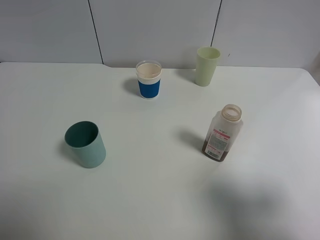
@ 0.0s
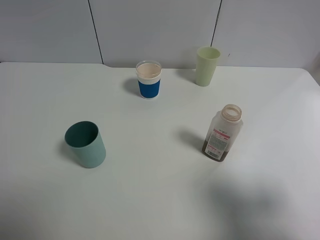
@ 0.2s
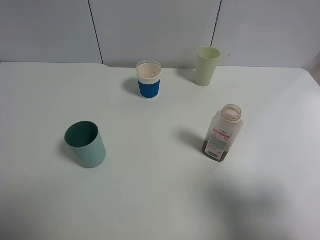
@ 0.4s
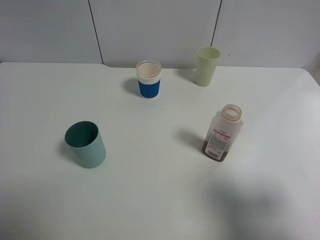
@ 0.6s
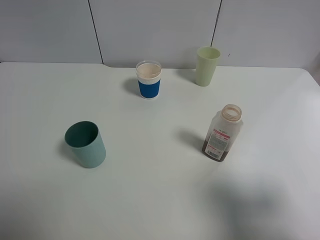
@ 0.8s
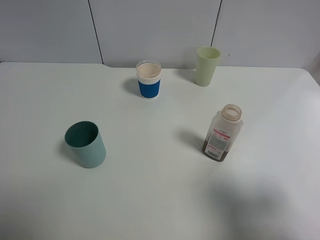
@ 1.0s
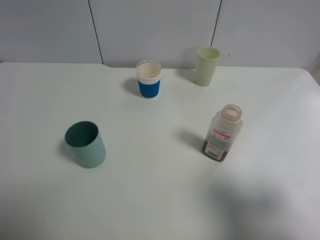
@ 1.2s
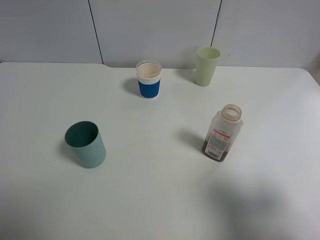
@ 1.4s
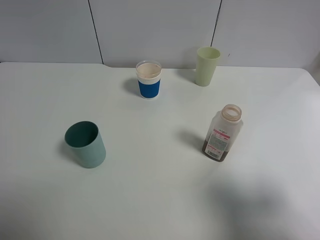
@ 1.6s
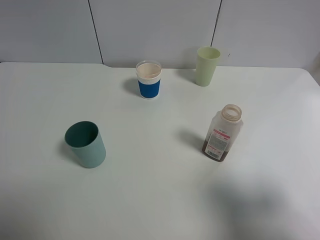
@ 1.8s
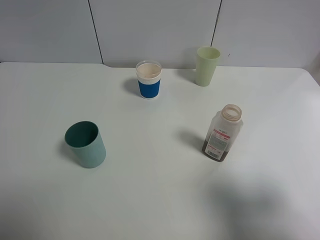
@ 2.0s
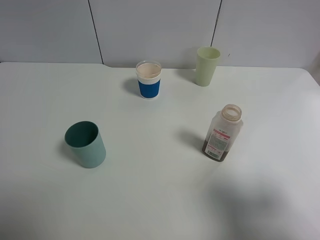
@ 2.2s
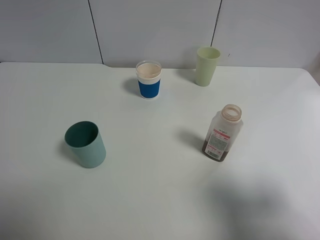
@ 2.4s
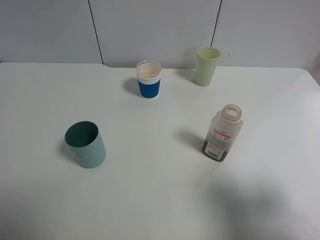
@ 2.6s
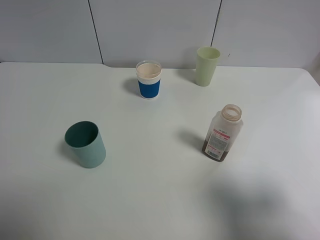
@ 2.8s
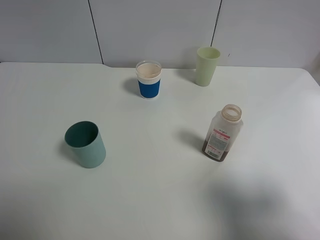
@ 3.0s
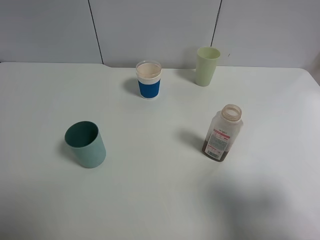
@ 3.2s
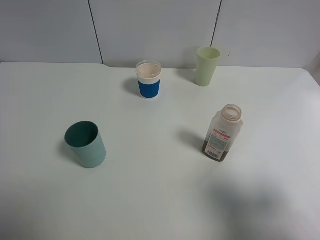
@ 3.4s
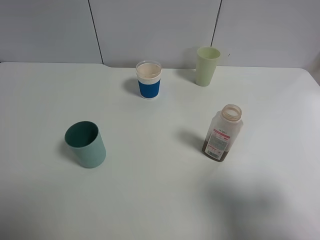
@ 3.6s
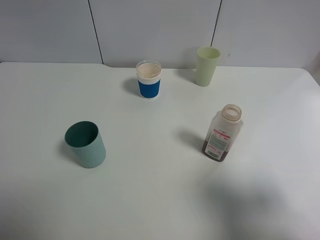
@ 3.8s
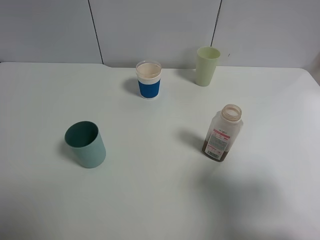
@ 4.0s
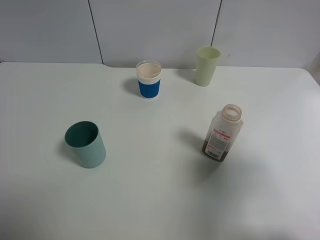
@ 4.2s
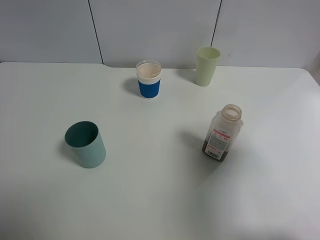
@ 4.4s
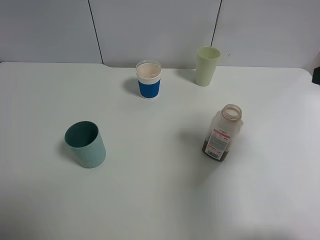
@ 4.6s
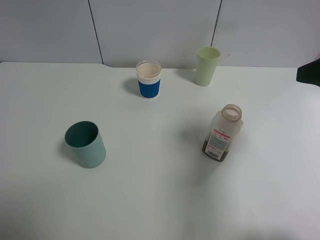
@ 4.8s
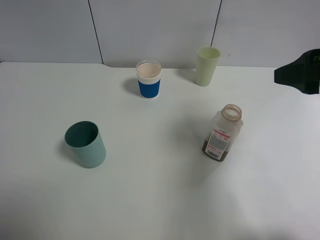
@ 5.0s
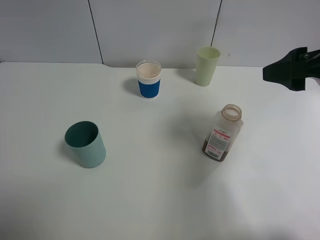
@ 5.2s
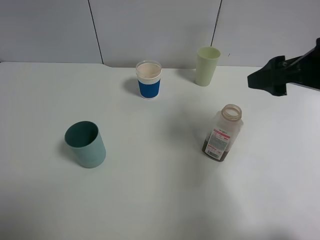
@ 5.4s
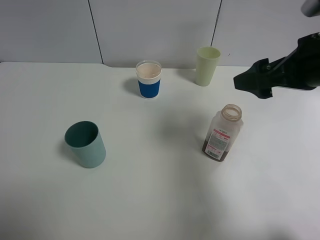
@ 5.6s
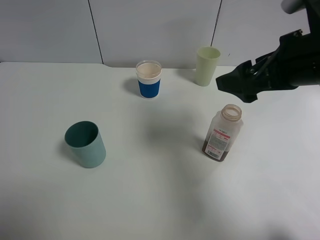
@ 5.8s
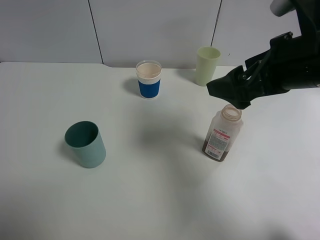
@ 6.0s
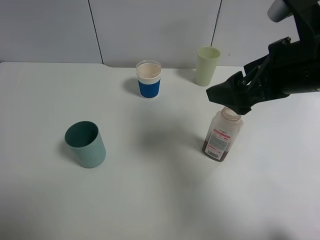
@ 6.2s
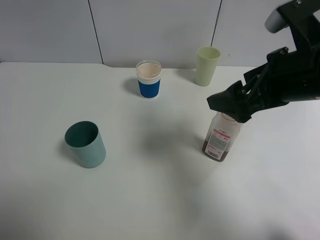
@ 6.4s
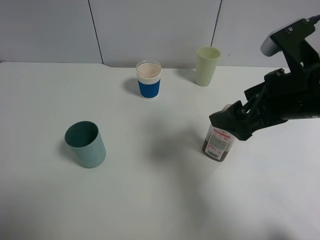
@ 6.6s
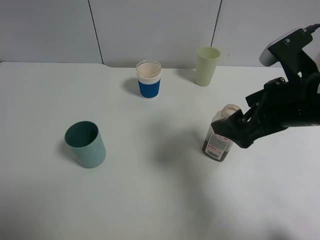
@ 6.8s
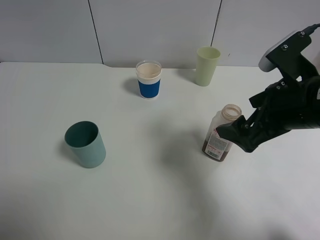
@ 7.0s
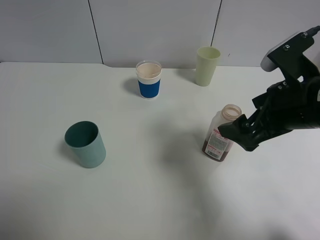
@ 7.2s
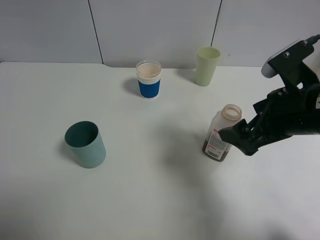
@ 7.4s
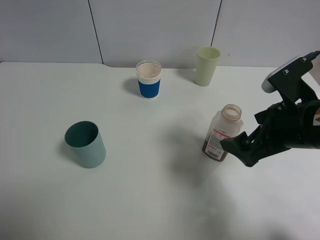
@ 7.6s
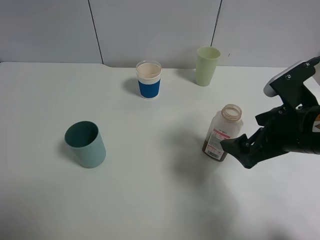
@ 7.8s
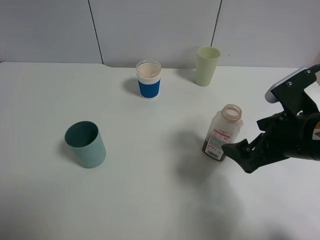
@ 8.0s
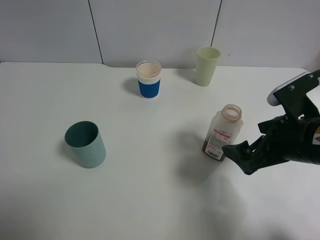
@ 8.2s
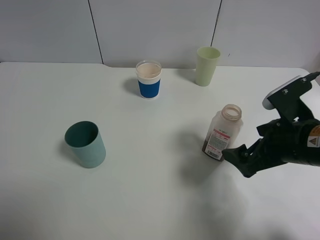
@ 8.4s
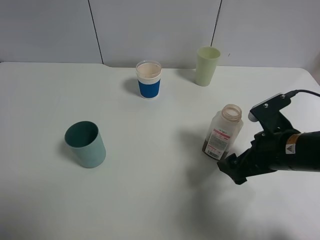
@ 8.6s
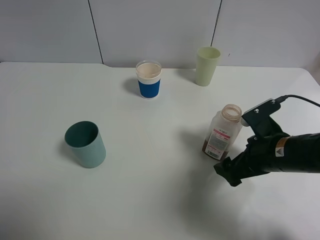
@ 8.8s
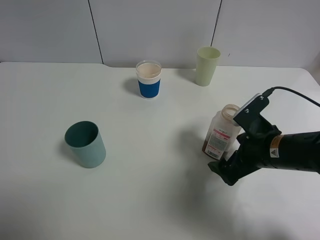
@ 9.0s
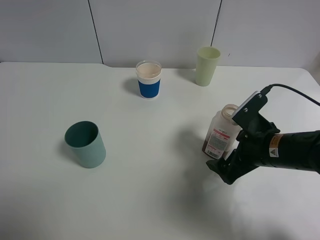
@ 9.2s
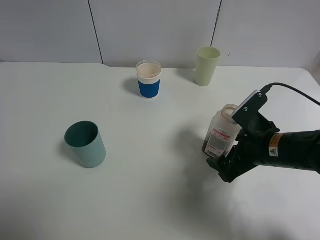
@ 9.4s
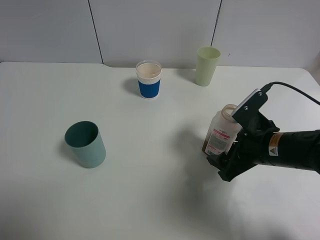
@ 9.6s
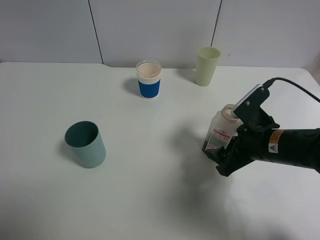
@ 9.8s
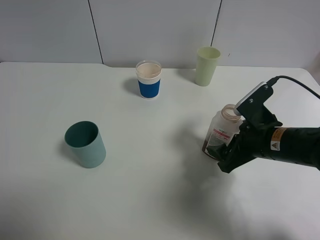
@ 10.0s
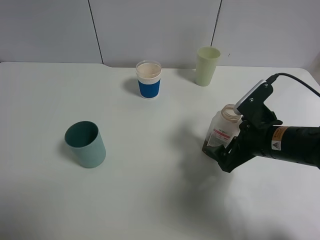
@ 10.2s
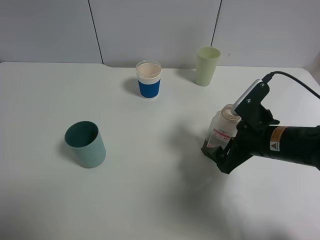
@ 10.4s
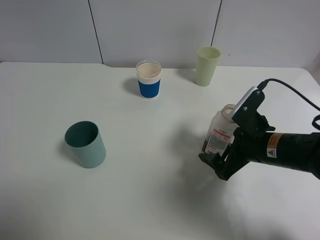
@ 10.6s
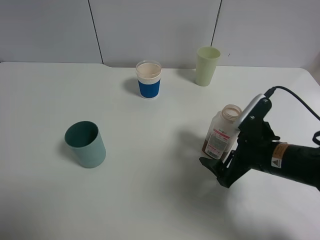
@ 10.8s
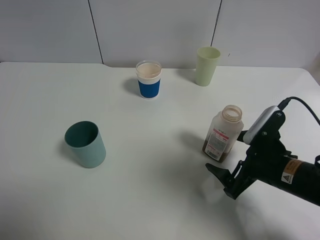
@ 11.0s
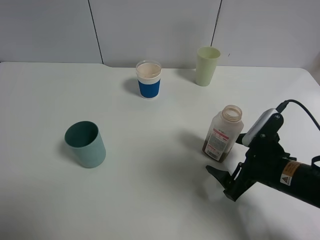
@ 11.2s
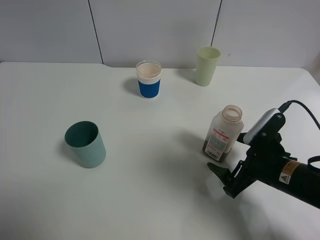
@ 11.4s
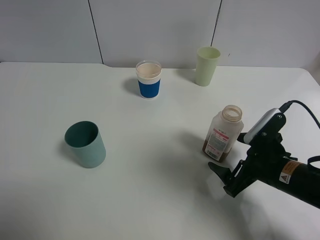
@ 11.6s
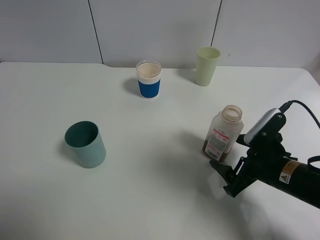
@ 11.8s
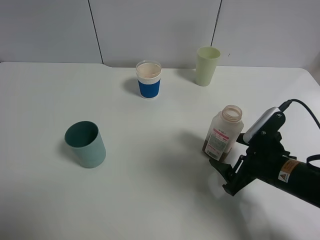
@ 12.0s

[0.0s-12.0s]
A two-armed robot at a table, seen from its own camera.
Task of the whole recording: use a gripper to hold the bottle of the drink and pour it into a random cup.
0.0s to 3.0s: Neither gripper changes place.
3.0s to 4.4s: The right gripper moves forward, about 10 cm.
4.4s to 6.0s: The right gripper heads to the left and forward, covering approximately 15 cm.
6.0s to 7.6s: The right gripper goes roughly 10 cm downward.
7.6s to 9.0s: The right gripper heads downward, covering some 10 cm.
9.0s to 10.4s: The grippers move only a little.
10.4s to 12.0s: The right gripper changes place by about 5 cm.

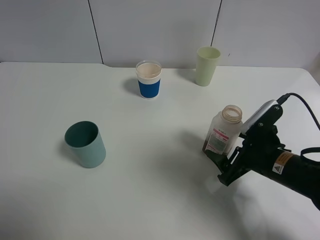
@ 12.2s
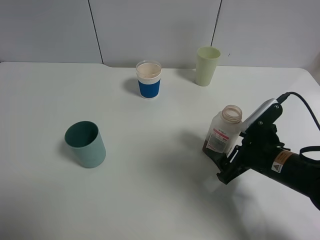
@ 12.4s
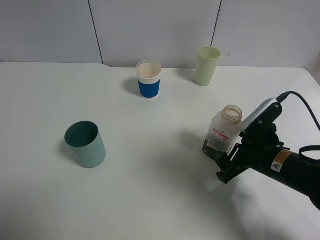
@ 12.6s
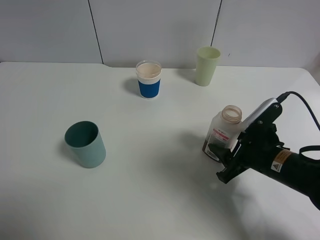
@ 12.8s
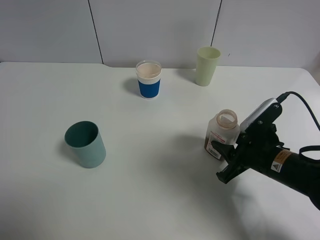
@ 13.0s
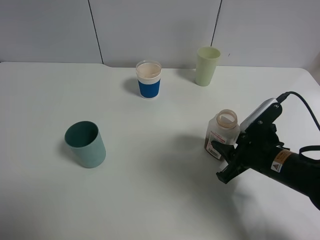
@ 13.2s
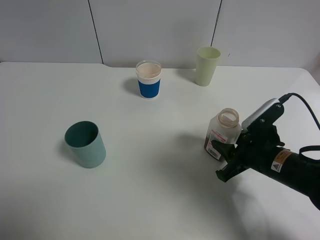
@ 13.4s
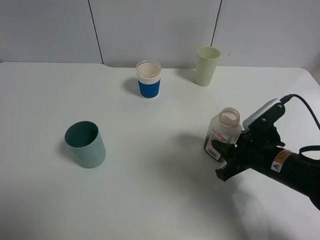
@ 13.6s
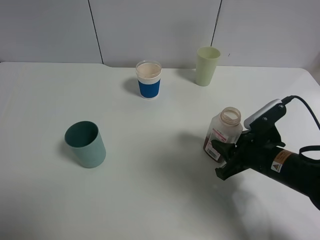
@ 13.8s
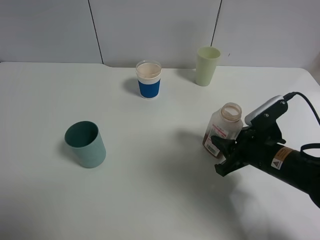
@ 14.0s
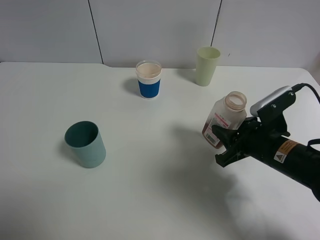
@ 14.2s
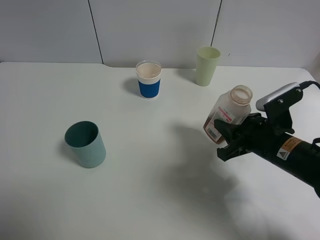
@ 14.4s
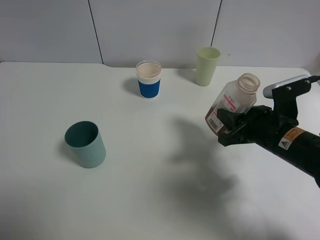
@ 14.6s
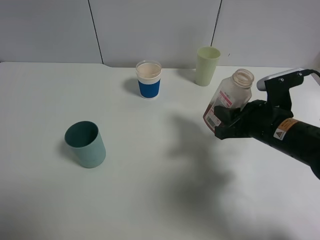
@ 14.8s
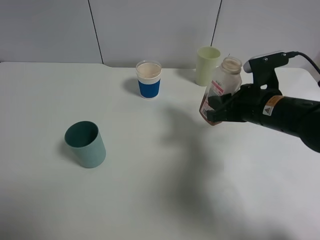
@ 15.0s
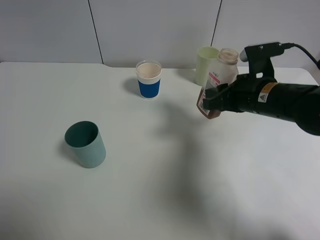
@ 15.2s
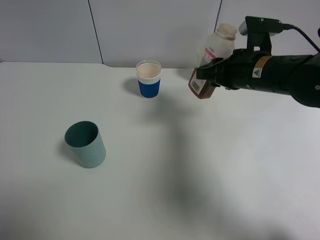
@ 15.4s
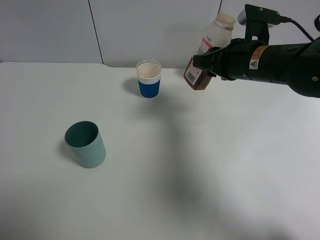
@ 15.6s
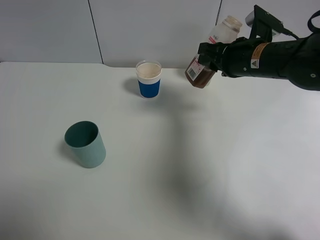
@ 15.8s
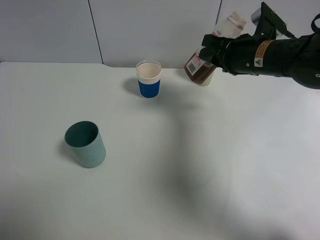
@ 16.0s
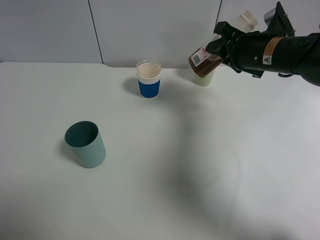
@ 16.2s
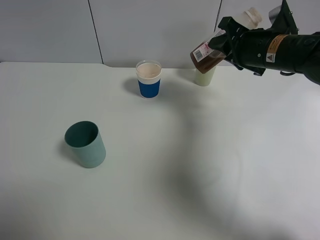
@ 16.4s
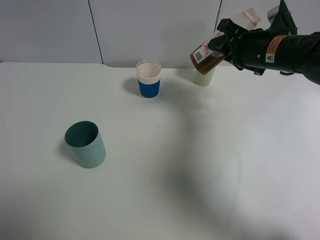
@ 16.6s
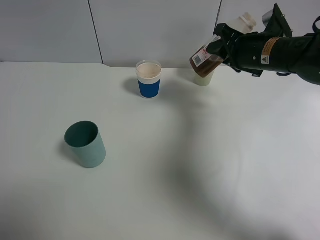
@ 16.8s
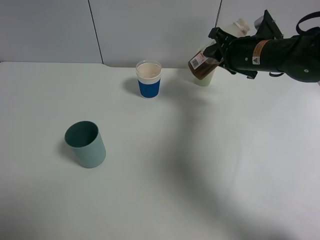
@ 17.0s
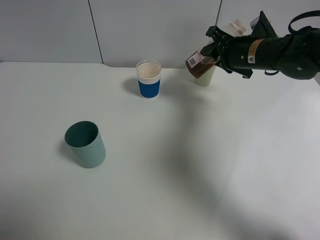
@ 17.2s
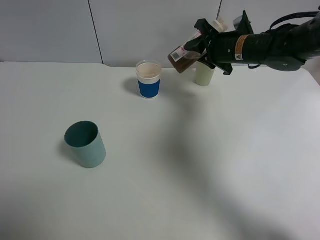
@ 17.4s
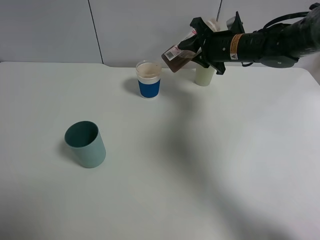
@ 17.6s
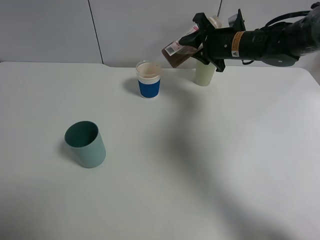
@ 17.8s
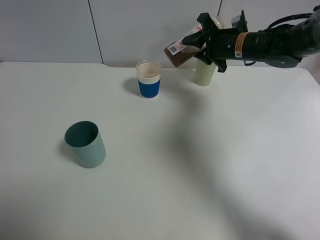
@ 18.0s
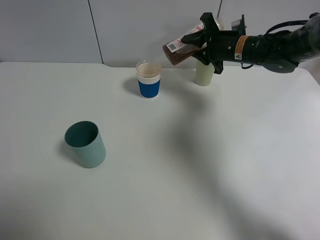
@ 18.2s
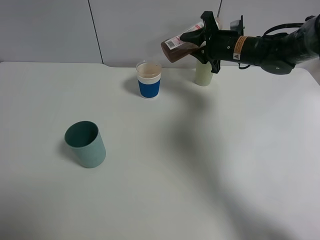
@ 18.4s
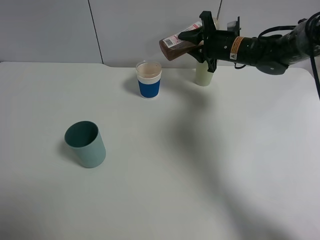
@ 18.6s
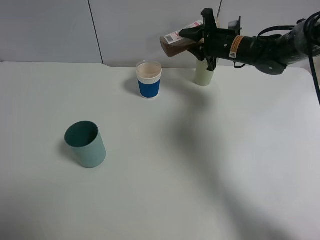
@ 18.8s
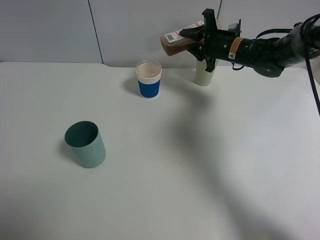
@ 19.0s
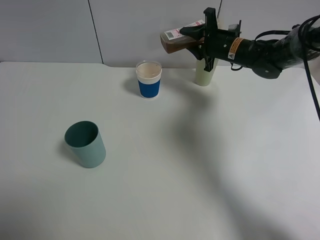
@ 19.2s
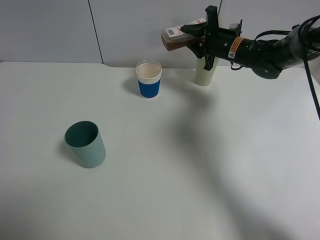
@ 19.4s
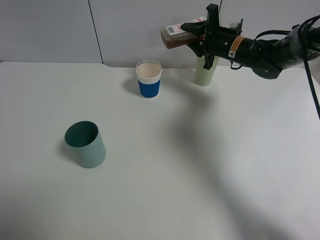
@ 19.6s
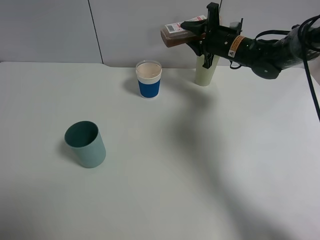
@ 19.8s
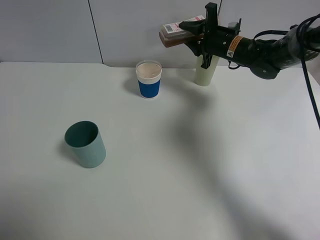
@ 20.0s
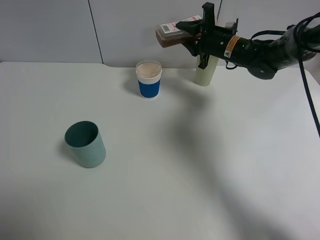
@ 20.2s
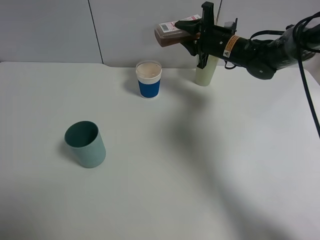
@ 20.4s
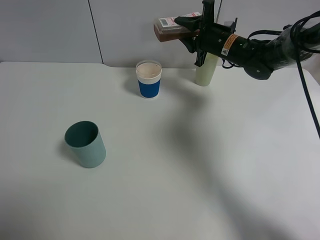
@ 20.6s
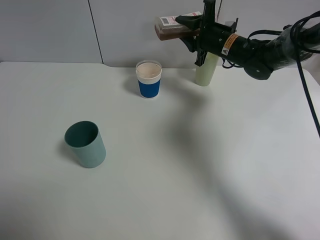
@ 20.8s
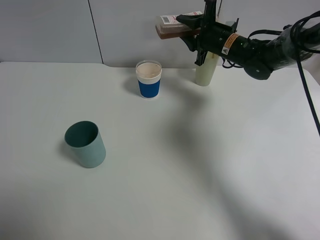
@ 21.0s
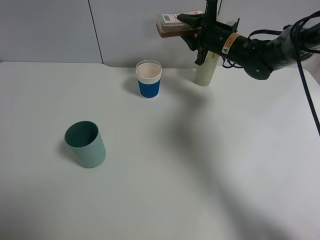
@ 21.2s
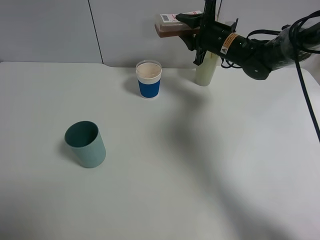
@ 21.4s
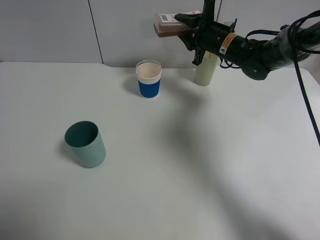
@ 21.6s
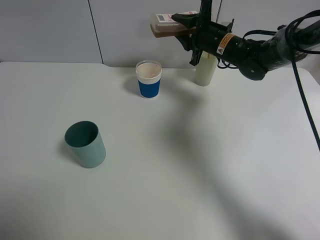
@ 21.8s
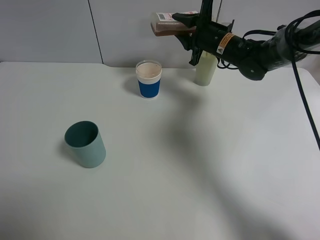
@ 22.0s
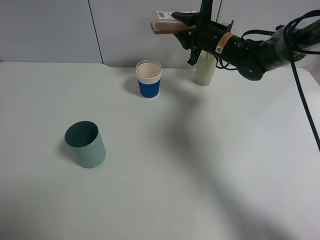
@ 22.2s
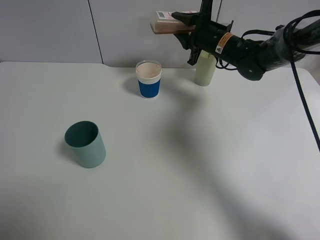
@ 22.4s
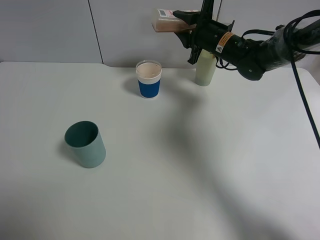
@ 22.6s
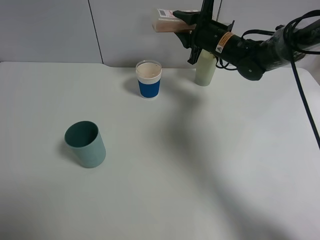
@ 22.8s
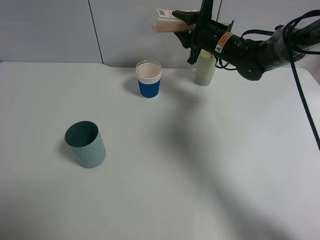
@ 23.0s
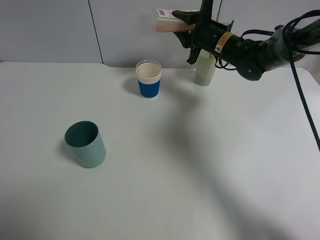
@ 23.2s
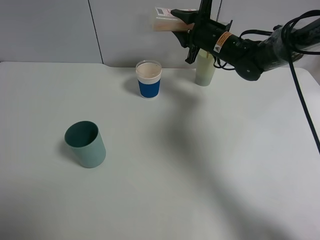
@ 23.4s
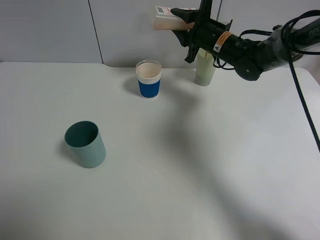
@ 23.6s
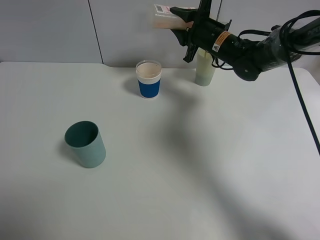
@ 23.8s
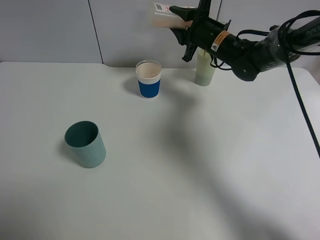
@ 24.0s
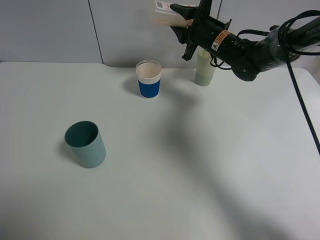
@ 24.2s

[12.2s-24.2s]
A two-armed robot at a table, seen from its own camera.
Task of the whole recording: use a gripper to hold the bottle of the drink and pour it into a random cup.
12.2s to 13.8s: The right gripper closes its fingers.
13.8s to 15.2s: The right gripper heads upward and forward, covering approximately 10 cm.
15.2s to 16.6s: The right gripper heads forward, covering approximately 5 cm.
16.6s to 18.2s: The right gripper is displaced forward by about 10 cm.
18.2s to 19.8s: The grippers stay close to where they were, moving slightly.
19.8s to 22.6s: The grippers stay close to where they were, moving slightly.
22.6s to 24.2s: The two grippers keep their place.
